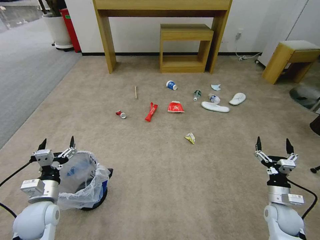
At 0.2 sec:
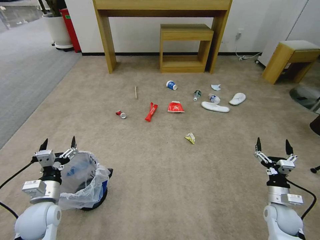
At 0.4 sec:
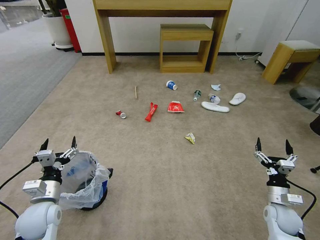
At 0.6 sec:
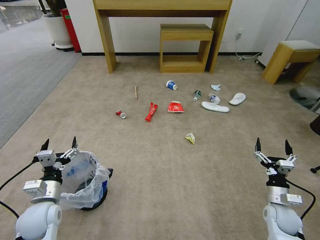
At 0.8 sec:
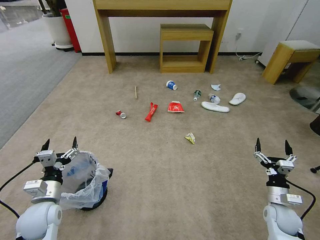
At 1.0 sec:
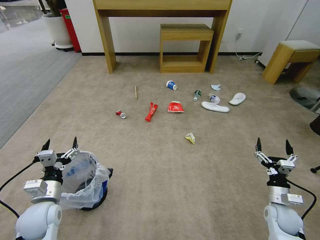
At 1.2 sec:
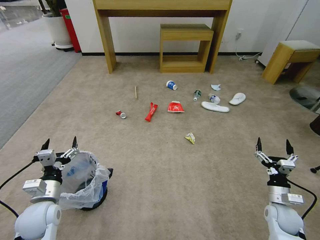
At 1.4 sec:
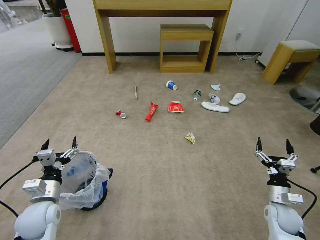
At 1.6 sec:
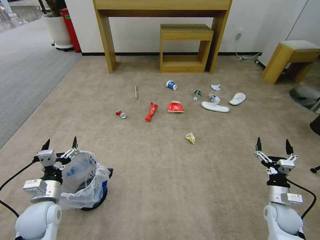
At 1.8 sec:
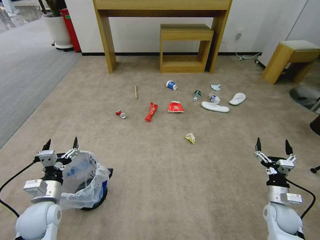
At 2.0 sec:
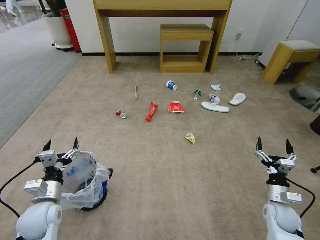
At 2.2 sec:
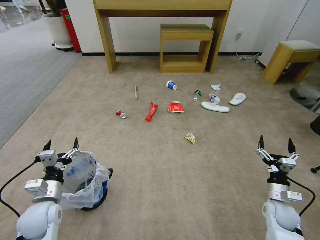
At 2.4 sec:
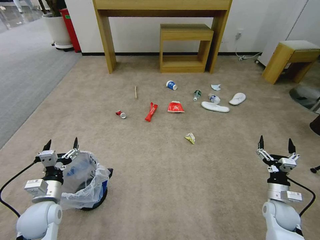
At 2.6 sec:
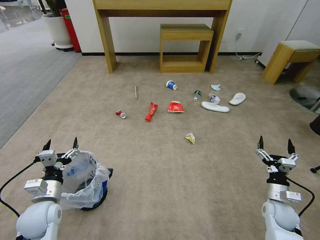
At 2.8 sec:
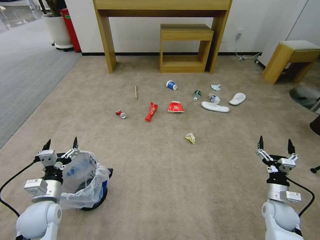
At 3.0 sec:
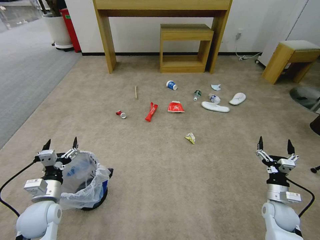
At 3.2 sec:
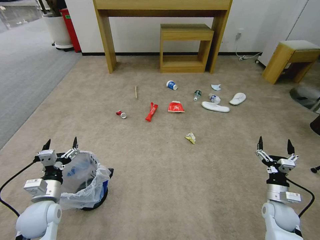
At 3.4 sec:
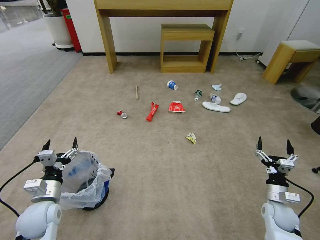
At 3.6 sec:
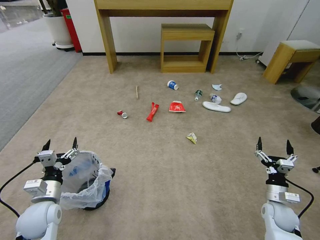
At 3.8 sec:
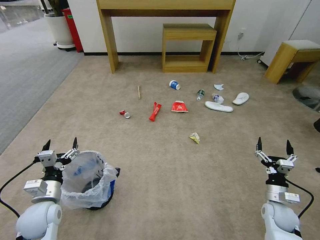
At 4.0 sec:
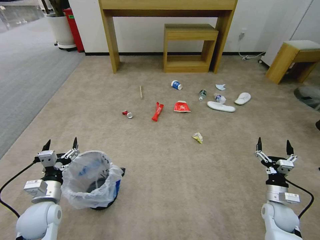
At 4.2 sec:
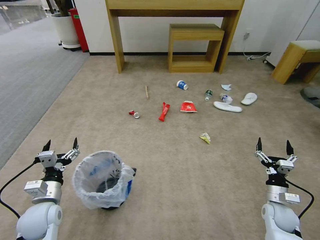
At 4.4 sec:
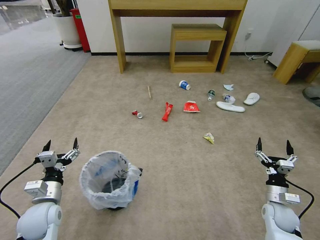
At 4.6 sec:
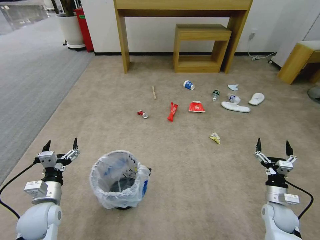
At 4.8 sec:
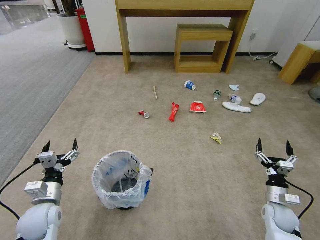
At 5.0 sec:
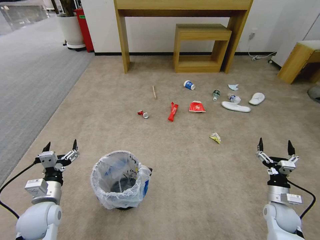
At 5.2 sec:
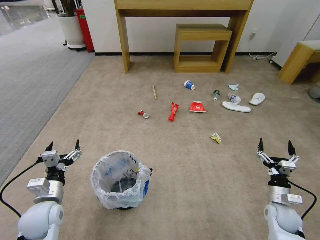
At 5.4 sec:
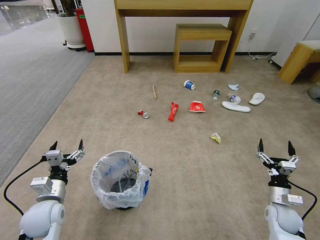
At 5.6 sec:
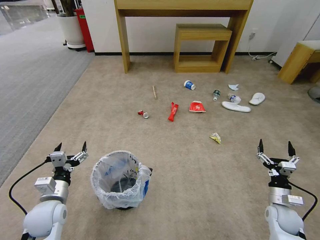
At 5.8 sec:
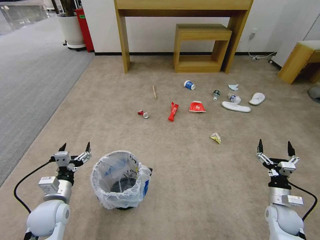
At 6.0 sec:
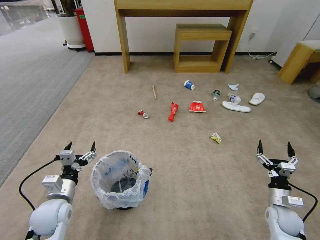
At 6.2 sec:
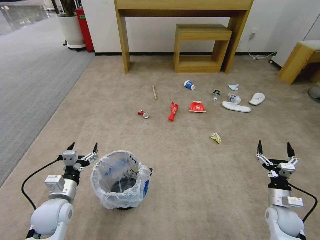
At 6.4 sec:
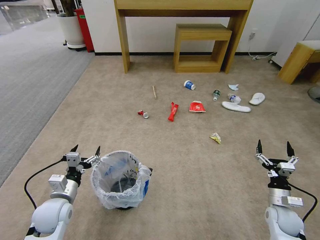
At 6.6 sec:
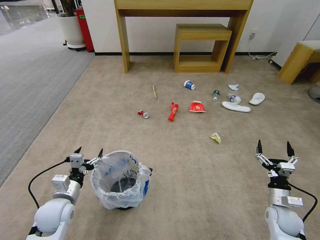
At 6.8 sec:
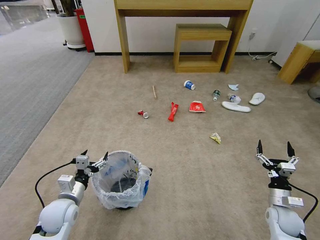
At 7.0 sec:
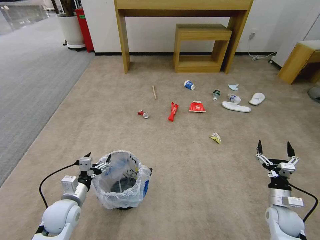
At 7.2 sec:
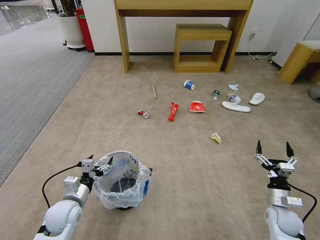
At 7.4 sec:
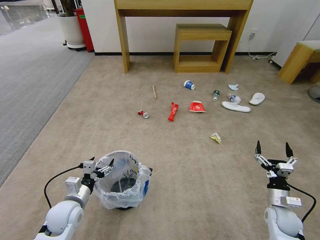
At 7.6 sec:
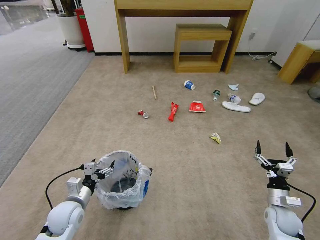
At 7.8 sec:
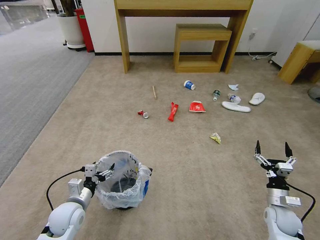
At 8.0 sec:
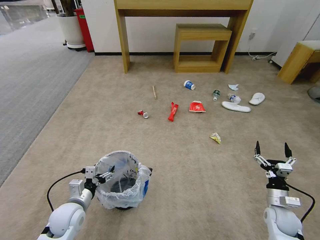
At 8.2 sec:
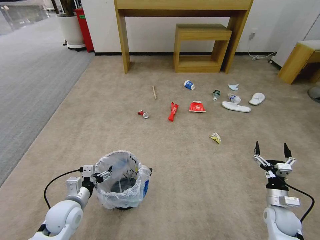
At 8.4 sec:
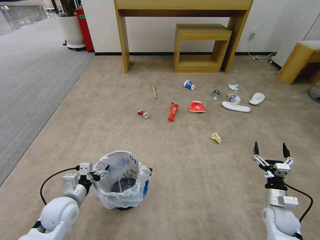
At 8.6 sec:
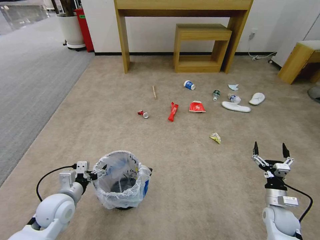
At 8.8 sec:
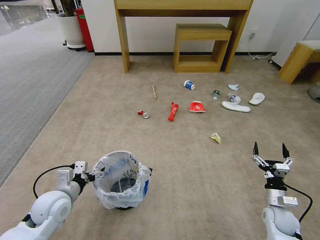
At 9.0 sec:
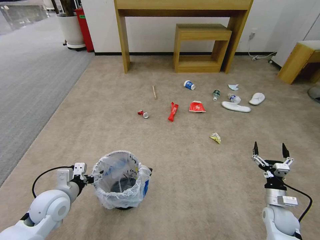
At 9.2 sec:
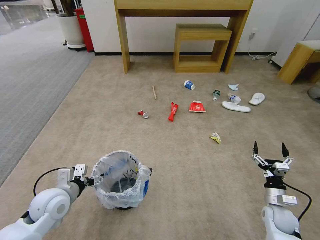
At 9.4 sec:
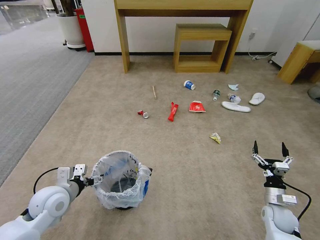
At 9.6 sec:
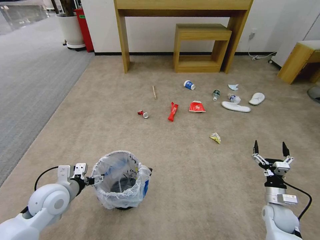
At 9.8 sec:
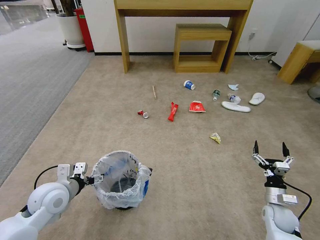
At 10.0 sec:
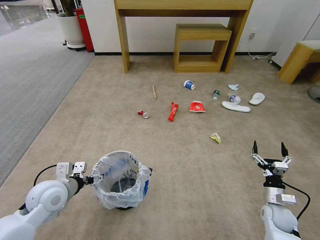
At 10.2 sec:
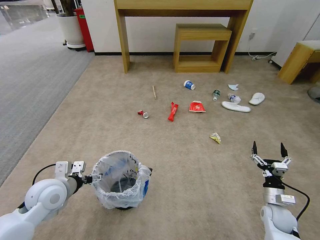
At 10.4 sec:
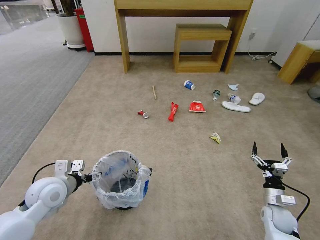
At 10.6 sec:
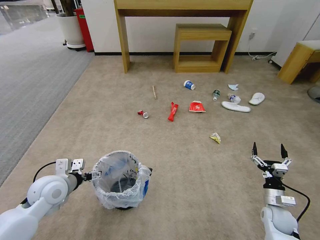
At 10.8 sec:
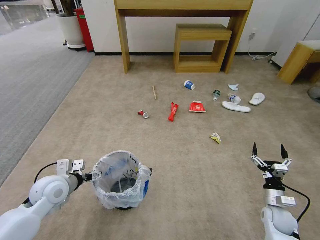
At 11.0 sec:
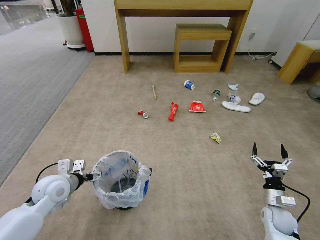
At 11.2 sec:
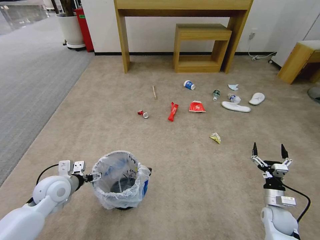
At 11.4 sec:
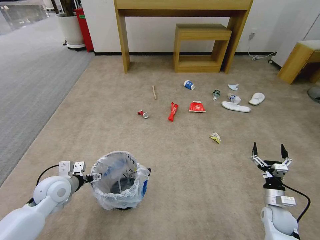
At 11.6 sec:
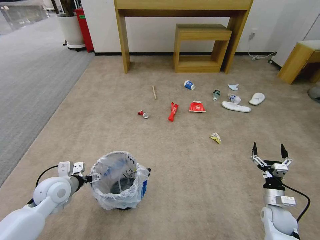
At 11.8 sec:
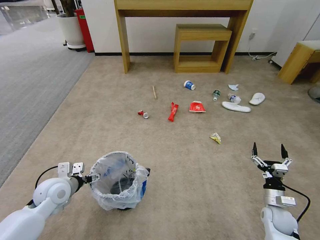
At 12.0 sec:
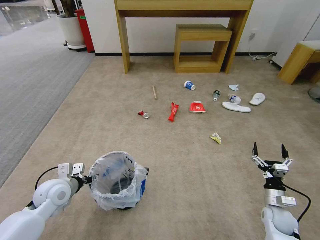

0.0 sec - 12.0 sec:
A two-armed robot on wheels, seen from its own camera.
Task of the whole recording: Pick up the trash bin and place the garbage on the floor into it.
1.6 sec - 4.4 sec: Neither gripper changes place.
4.4 sec - 6.0 sec: The grippers stay close to where they were, moving slightly.
6.0 sec - 7.6 sec: The left gripper moves about 5 cm.
7.6 sec - 9.0 sec: The left gripper shifts about 5 cm upward.
9.0 sec - 10.4 sec: The grippers stay close to where they were, moving slightly.
10.4 sec - 12.0 sec: The left gripper closes its fingers.

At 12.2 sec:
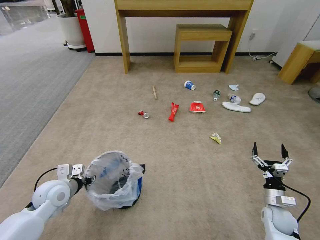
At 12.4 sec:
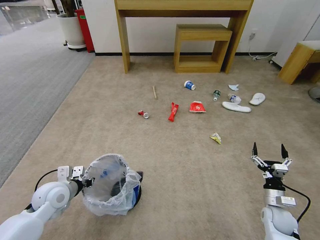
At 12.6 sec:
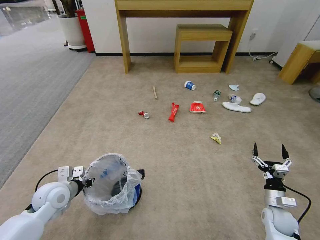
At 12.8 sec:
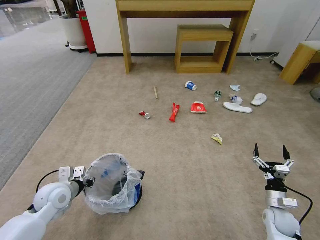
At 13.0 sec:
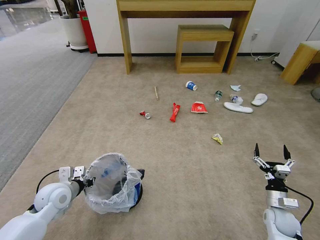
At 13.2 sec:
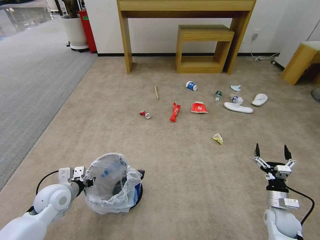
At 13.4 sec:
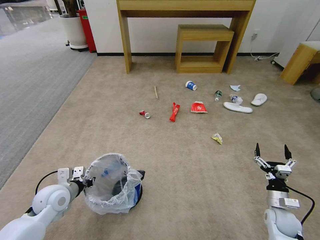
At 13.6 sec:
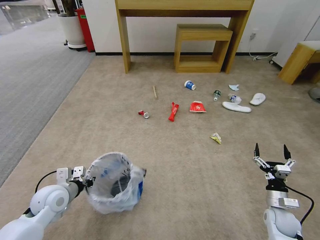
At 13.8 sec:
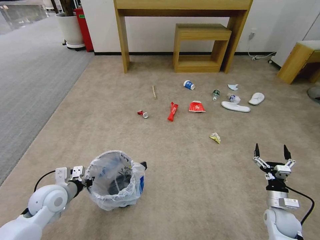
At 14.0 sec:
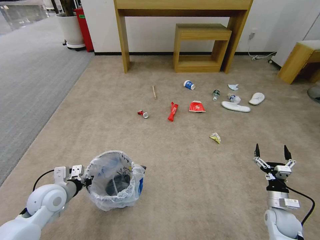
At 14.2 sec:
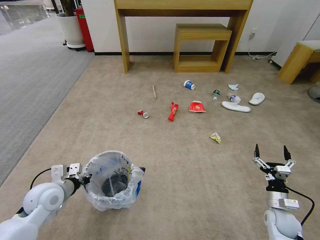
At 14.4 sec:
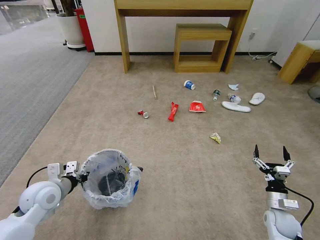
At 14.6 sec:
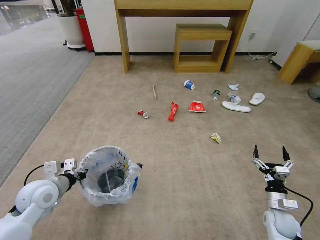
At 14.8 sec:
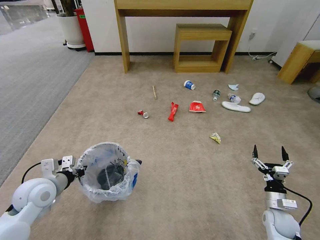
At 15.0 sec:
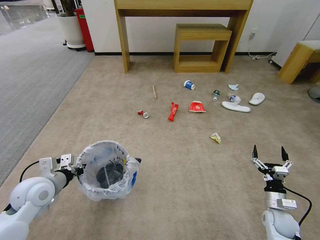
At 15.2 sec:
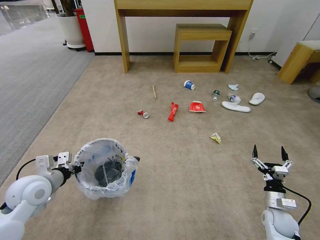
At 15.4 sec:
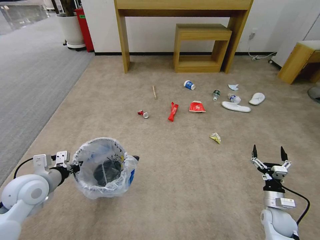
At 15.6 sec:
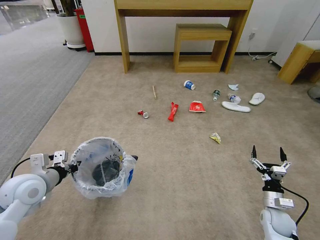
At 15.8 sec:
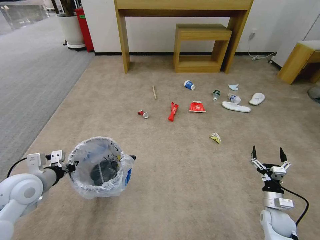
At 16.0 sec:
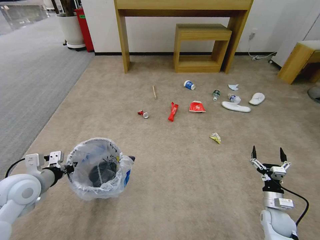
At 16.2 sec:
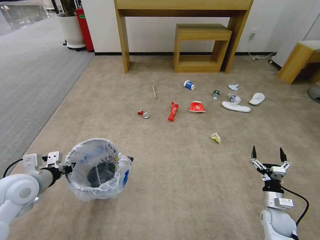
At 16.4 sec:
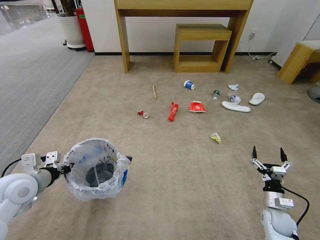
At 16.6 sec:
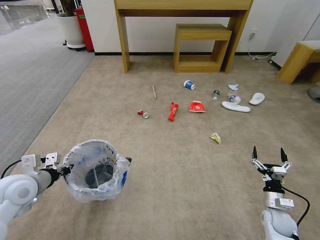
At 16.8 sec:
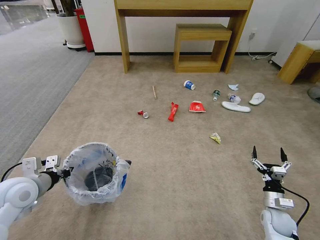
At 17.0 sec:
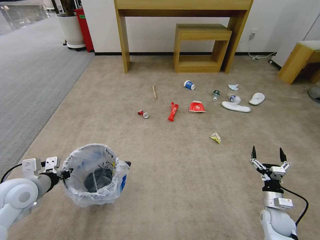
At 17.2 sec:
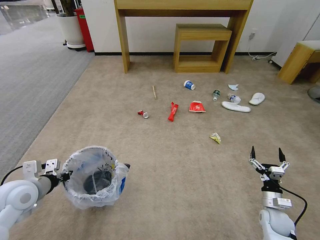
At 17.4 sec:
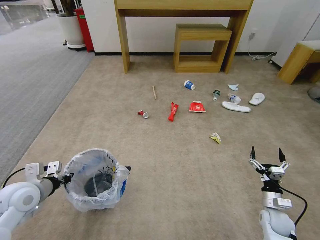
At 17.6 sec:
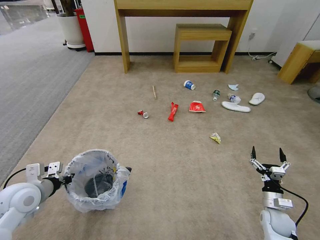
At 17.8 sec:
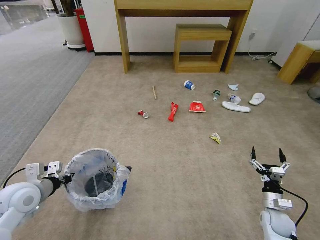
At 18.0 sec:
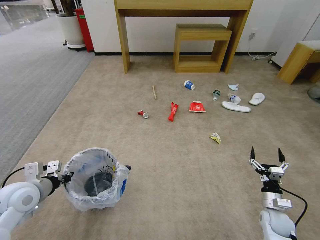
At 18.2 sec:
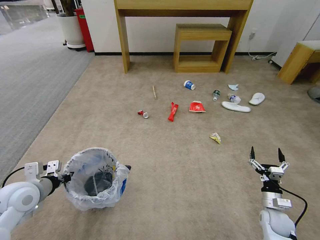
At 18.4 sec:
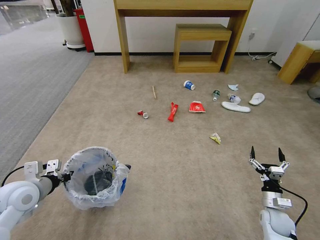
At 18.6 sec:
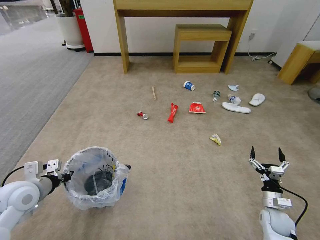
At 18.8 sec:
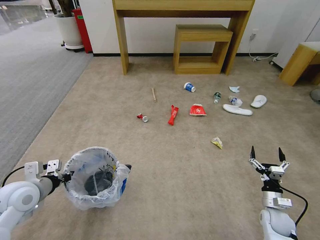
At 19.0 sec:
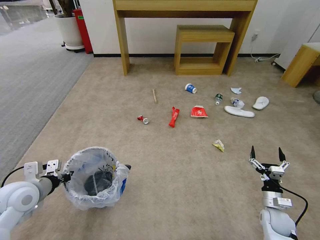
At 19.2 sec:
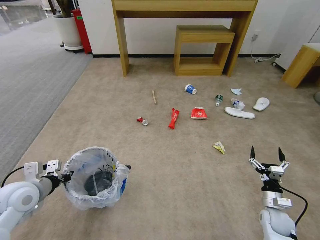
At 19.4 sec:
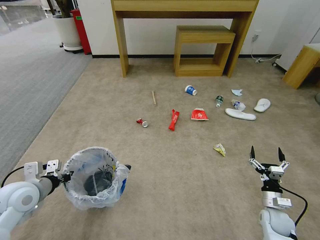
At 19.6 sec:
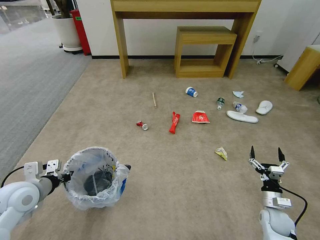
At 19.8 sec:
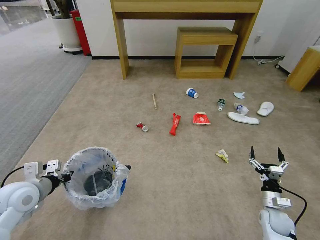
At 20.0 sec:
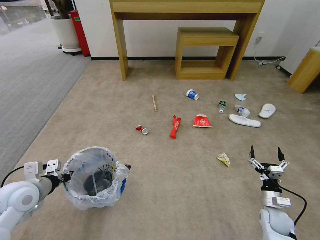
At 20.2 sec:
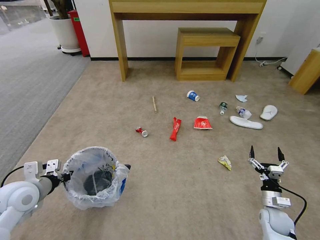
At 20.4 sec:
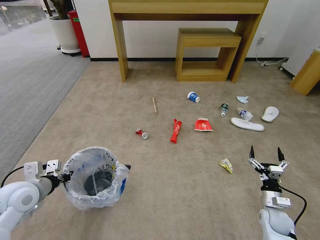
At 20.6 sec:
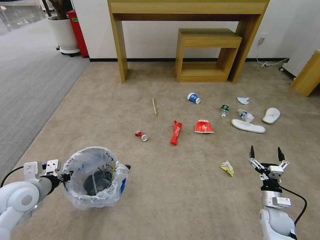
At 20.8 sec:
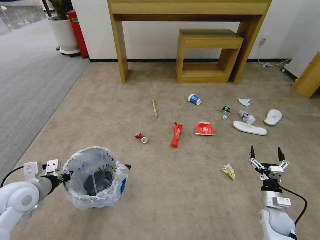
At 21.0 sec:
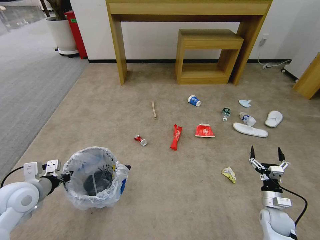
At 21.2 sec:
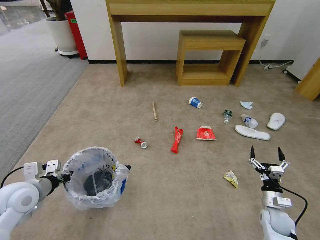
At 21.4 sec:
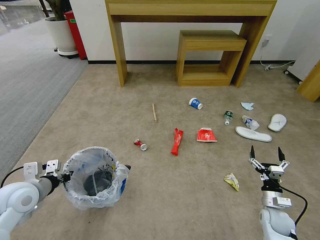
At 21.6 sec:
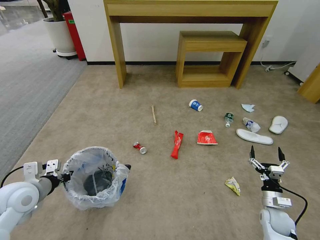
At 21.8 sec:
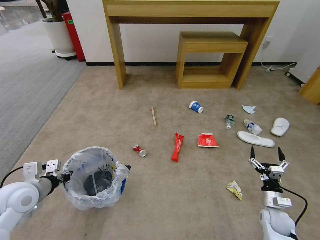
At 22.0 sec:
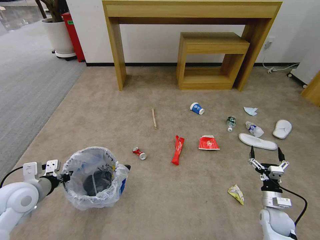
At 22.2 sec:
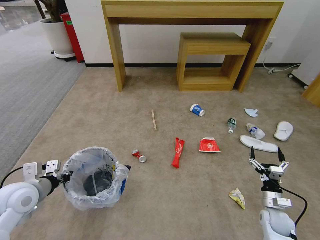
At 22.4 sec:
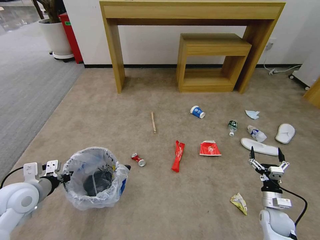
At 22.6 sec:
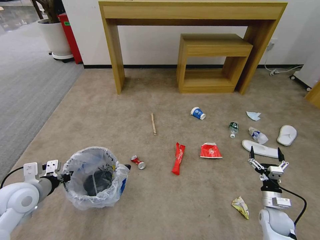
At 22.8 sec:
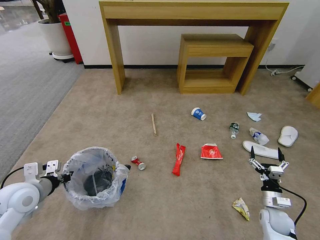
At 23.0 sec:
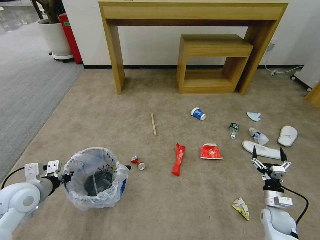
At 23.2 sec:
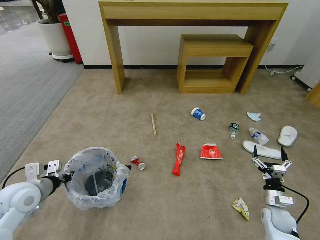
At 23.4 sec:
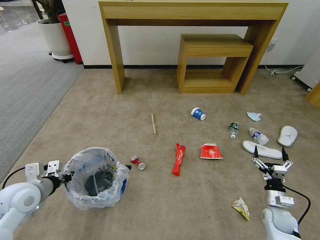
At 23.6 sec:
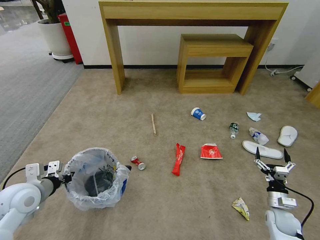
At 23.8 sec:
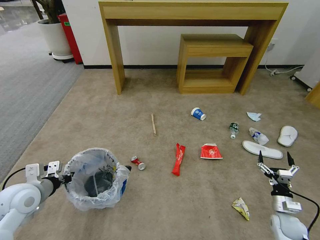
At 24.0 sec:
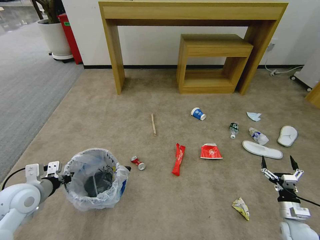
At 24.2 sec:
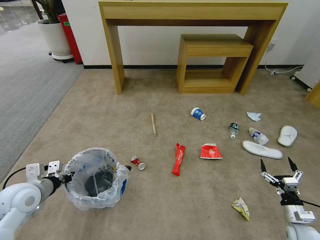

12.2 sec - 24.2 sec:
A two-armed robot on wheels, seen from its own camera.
Task of the whole recording: Pick up the trash bin and place the garbage on the floor into it.
12.2 sec - 13.8 sec: The left gripper closes its fingers.
13.8 sec - 15.2 sec: The left gripper moves upward, roughly 5 cm.
15.2 sec - 18.2 sec: There are only small adjustments of the grippers.
18.2 sec - 22.6 sec: Both grippers stay put.
22.6 sec - 24.2 sec: The right gripper is displaced to the right and backward by some 10 cm.
